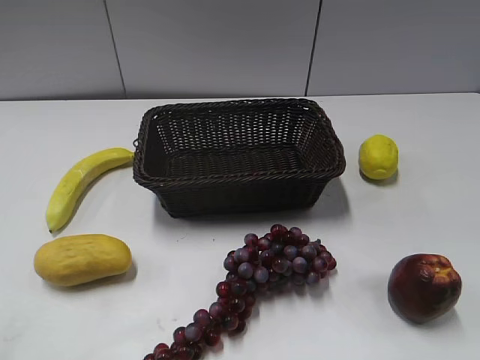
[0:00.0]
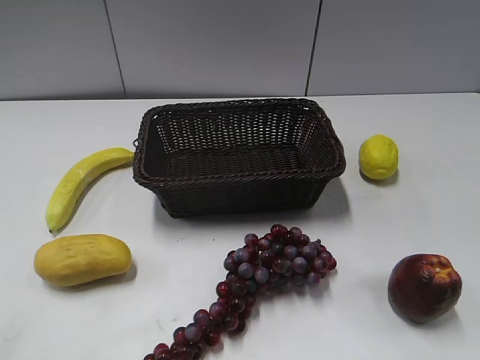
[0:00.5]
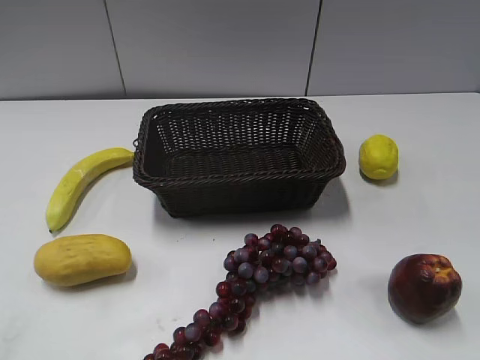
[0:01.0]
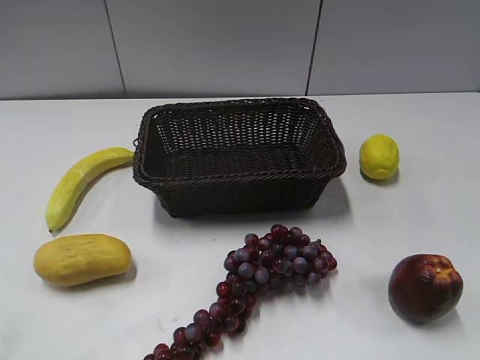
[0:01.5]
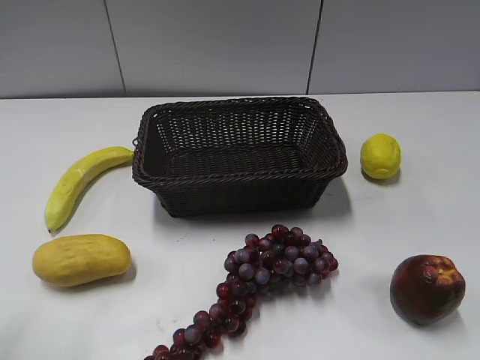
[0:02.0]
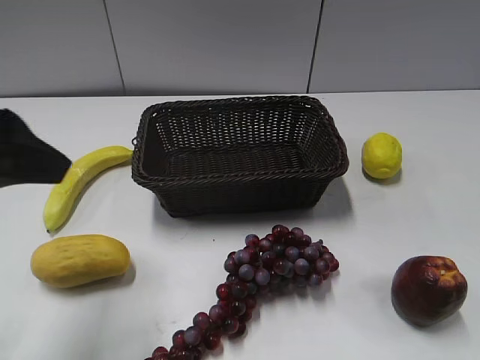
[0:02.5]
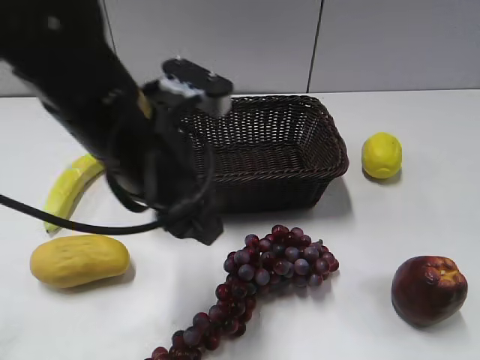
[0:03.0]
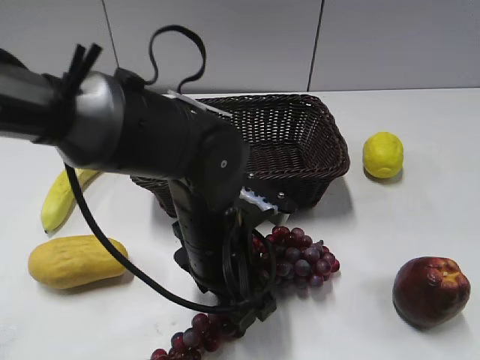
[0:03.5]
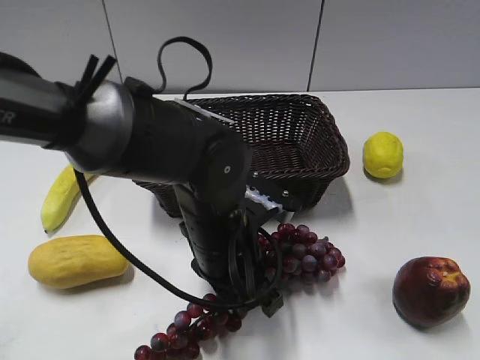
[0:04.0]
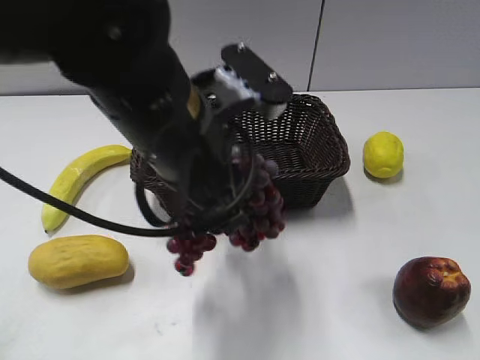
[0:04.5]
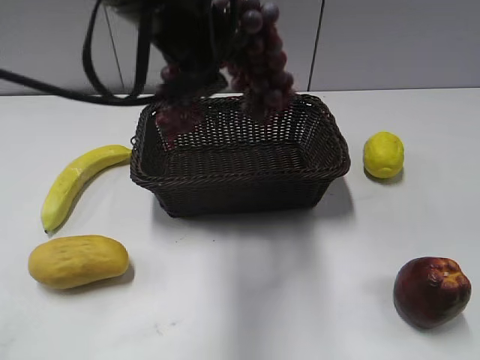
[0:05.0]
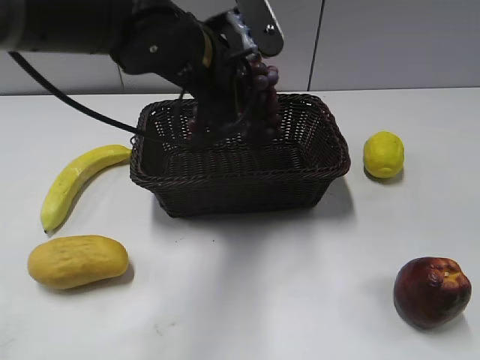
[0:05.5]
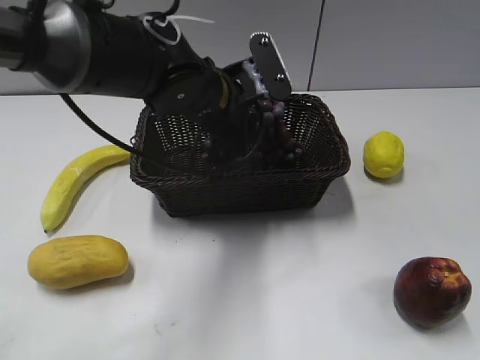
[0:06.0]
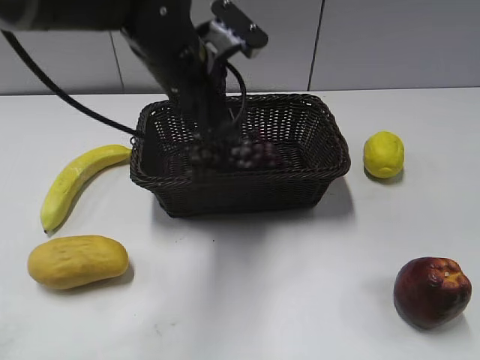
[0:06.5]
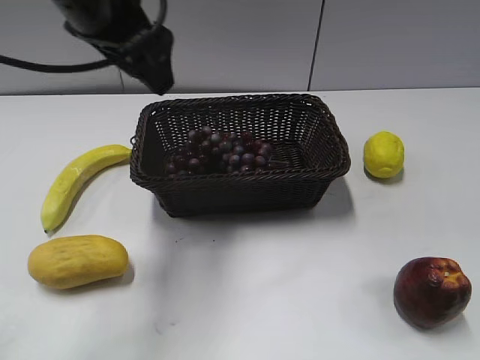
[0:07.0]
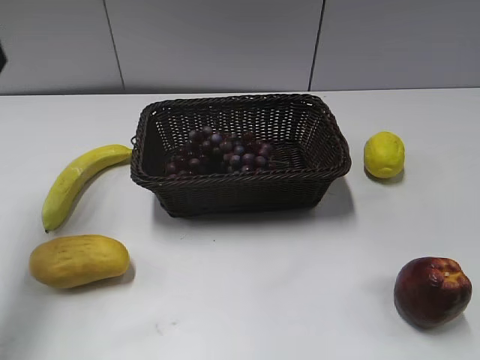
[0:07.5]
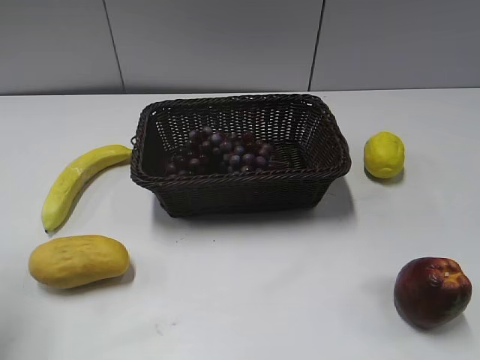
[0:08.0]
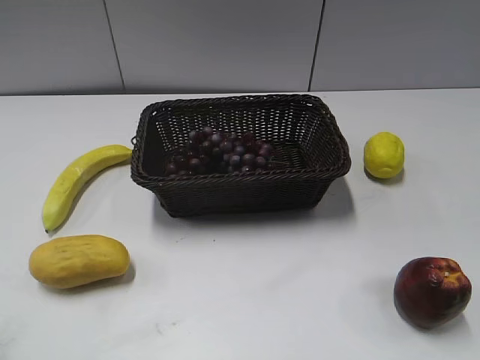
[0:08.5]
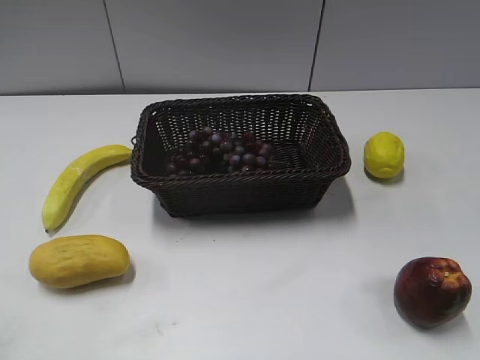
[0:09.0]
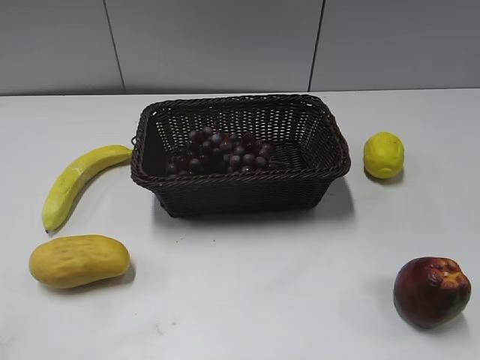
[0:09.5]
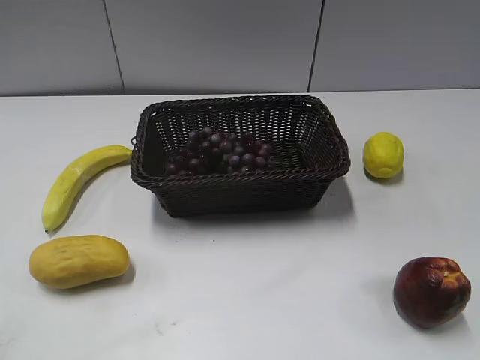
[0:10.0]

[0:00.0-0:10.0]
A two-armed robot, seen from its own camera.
Step, 0:02.5 to 0:03.5: Grasp the grape with left gripper.
Step, 0:04.0 to 0:06.0: Place the grape in the basket with left gripper.
0:02.0 to 0:04.0: The left gripper heads to the right, downward and forward, covering approximately 35 cm, and closes up.
0:04.0 to 0:06.0: The left gripper travels forward by some 10 cm, and goes upward and returns, approximately 20 cm each way.
0:06.0 to 0:08.0: The left gripper goes some 35 cm to the left, backward and upward, and opens its fingers.
0:08.0 to 0:10.0: The left gripper shifts about 20 cm backward.
